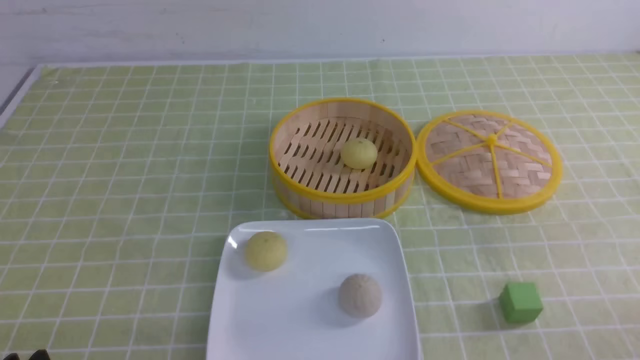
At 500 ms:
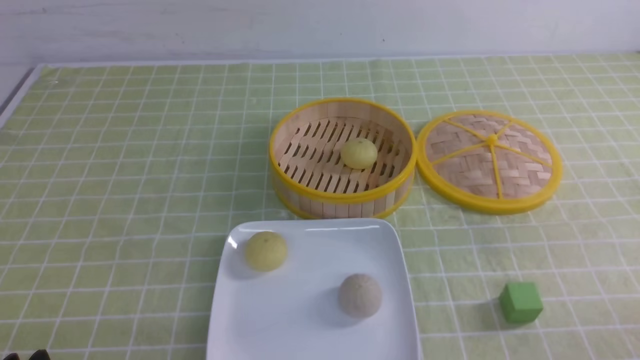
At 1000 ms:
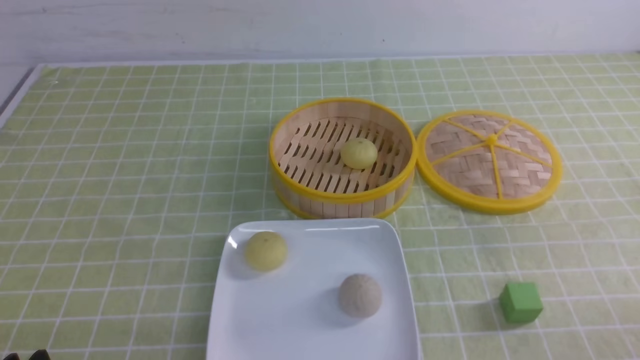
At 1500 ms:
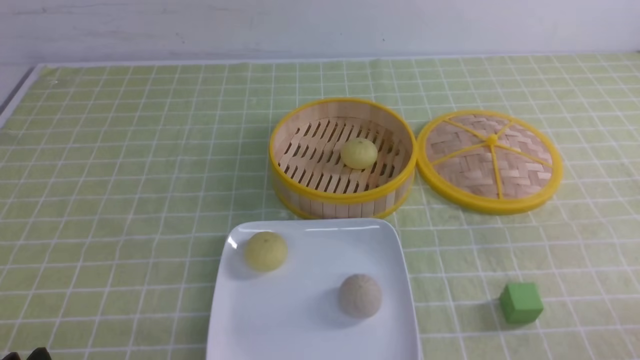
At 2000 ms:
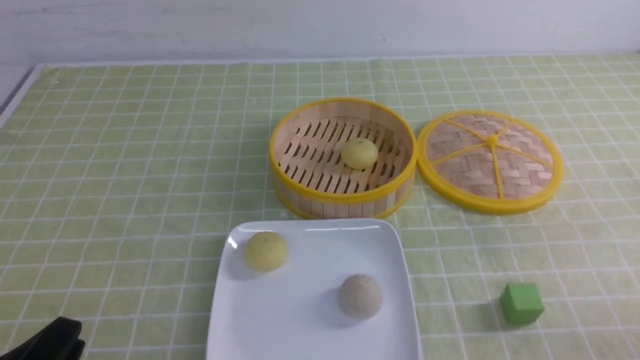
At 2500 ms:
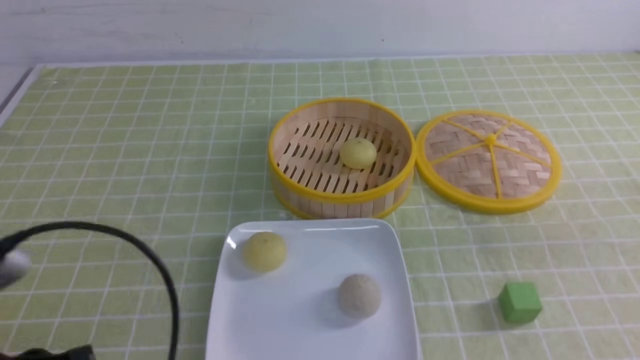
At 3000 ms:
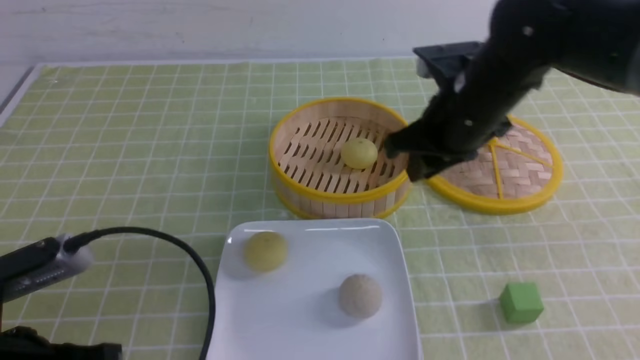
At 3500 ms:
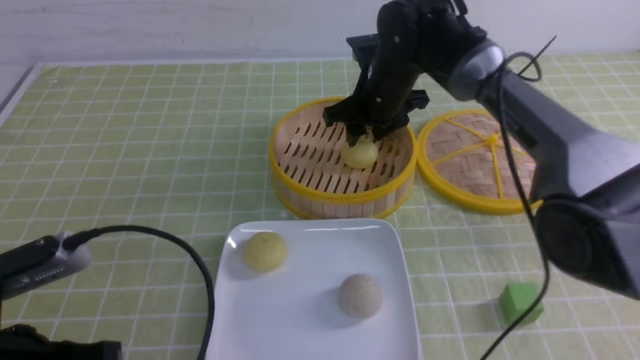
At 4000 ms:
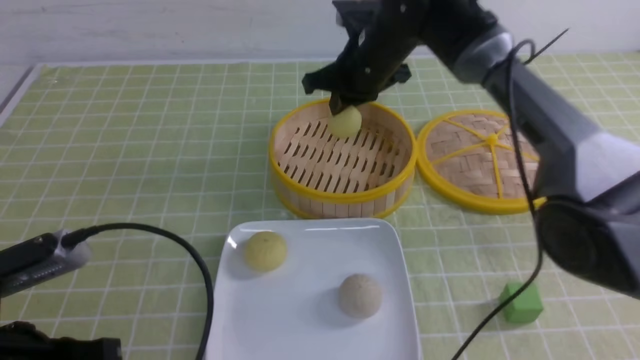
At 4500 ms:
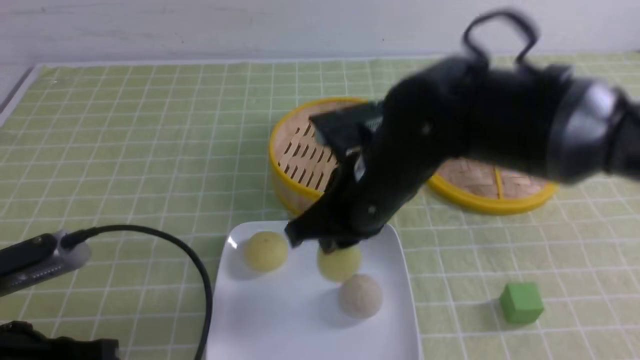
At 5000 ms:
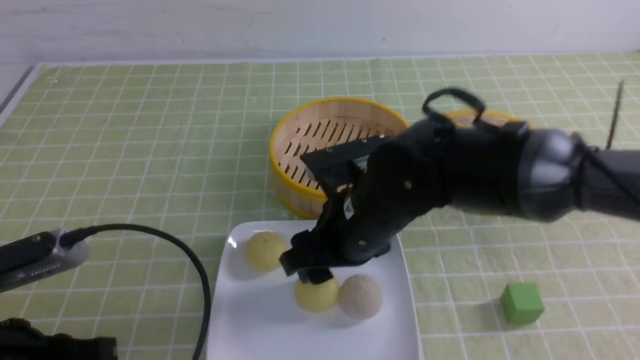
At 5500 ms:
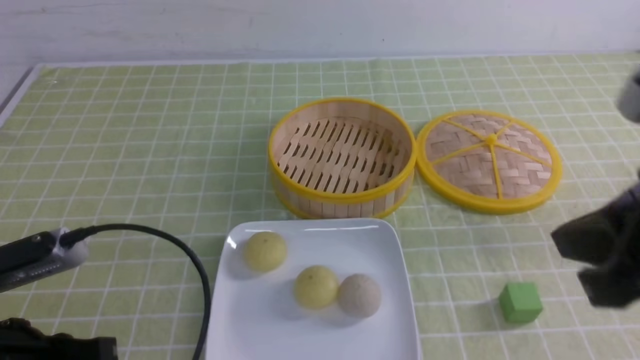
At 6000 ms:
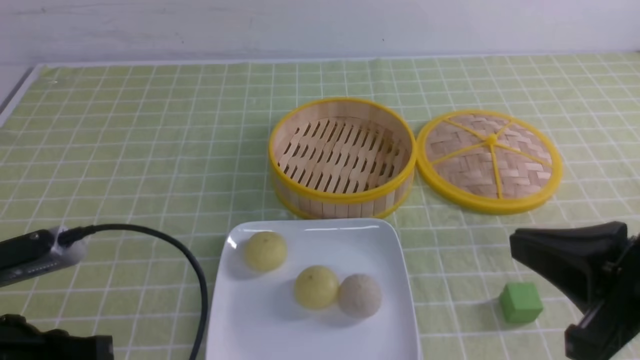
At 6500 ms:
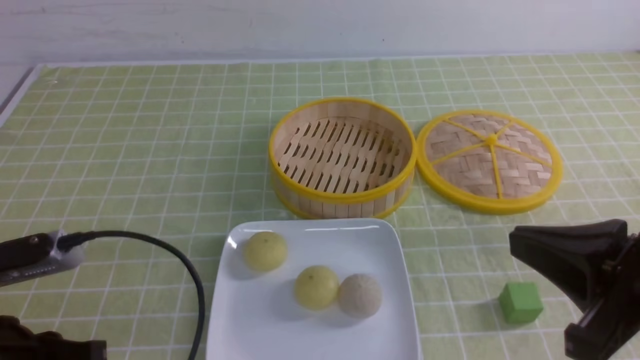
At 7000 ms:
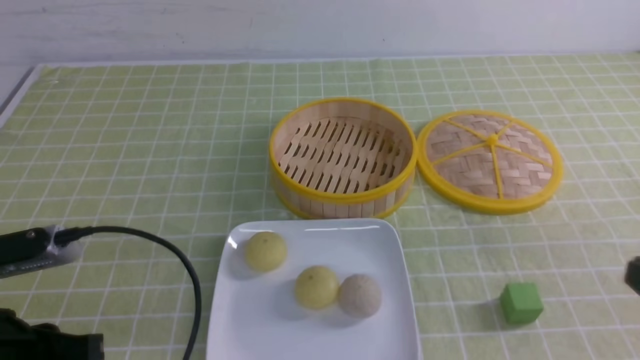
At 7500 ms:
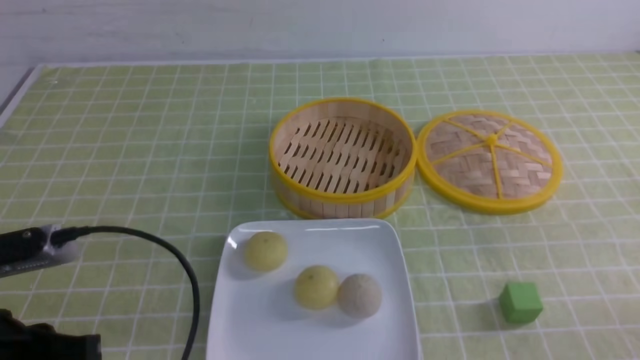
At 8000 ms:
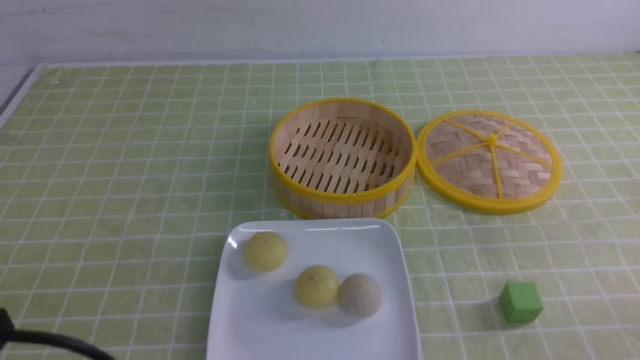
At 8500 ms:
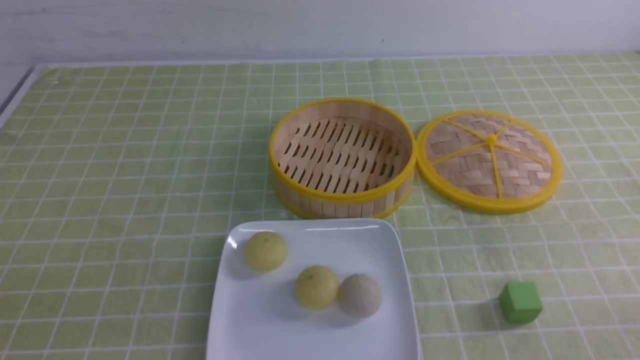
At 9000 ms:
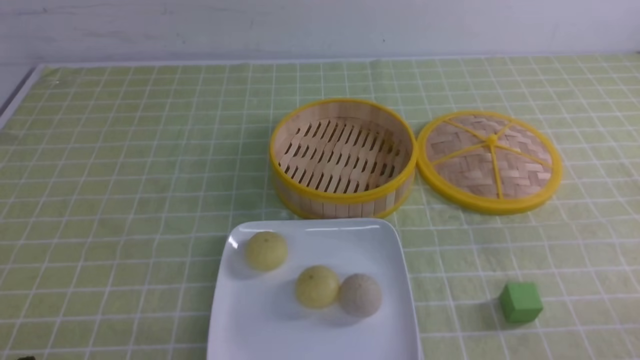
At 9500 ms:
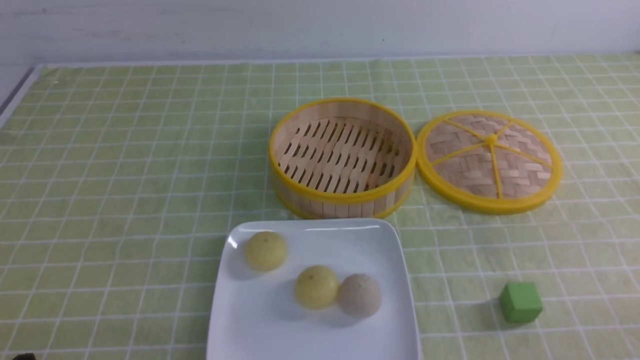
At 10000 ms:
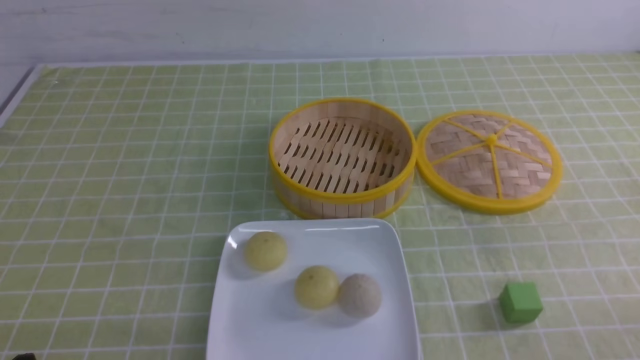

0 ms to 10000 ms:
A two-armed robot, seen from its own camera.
Step, 0 ms to 3500 ms: use the right arm to grab the steamed stuffed bun that is closest to it.
Step, 4000 ms to 4500 ms: use the right arm to put the steamed stuffed bun into the plate.
2000 ms to 4000 ms: The left gripper is displaced forward by roughly 5 cm, and closes its fingers; the right gripper shifts roughly 50 cm forward and to the left, and closes.
4000 ms to 6000 ms: The right gripper goes about 35 cm backward and to the right, and opens and closes again.
6000 ms to 8000 ms: The left gripper travels backward by roughly 10 cm, and closes, while the right gripper shifts some 15 cm downward, to the right and backward.
8000 ms to 10000 ms: The left gripper is displaced downward by about 10 cm.

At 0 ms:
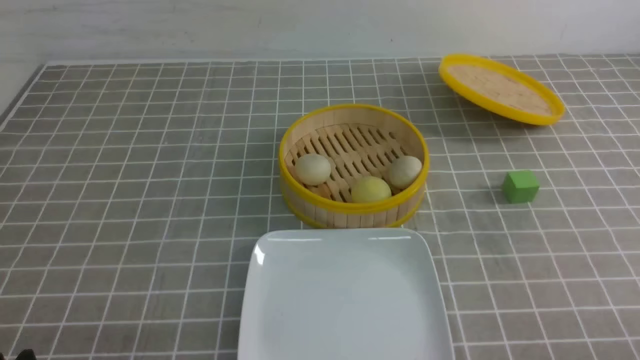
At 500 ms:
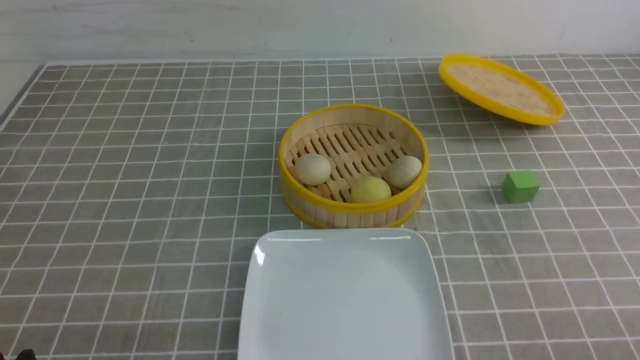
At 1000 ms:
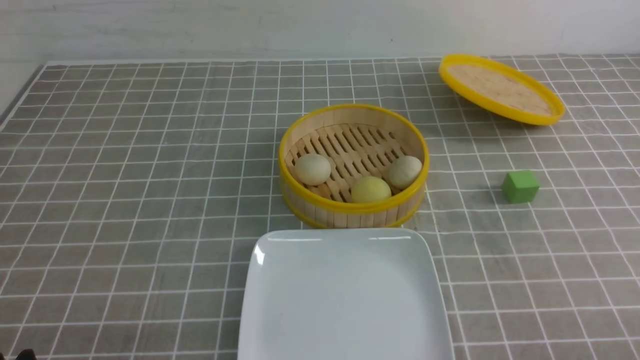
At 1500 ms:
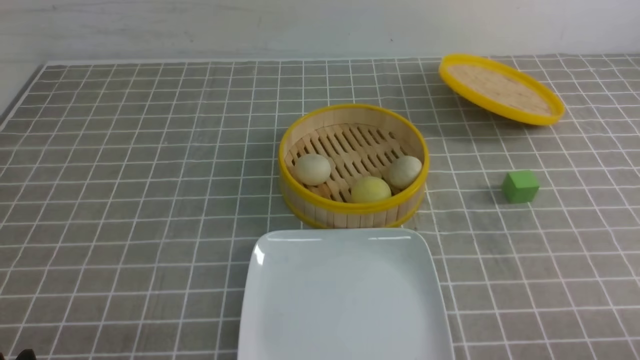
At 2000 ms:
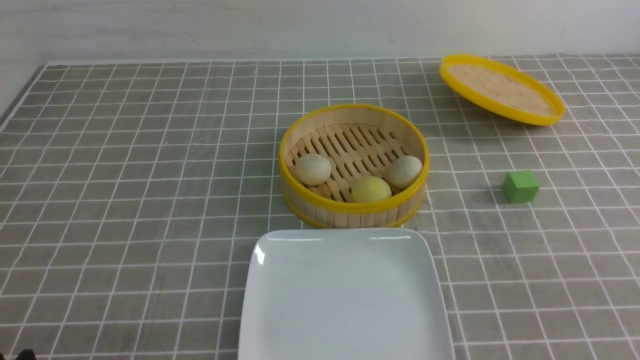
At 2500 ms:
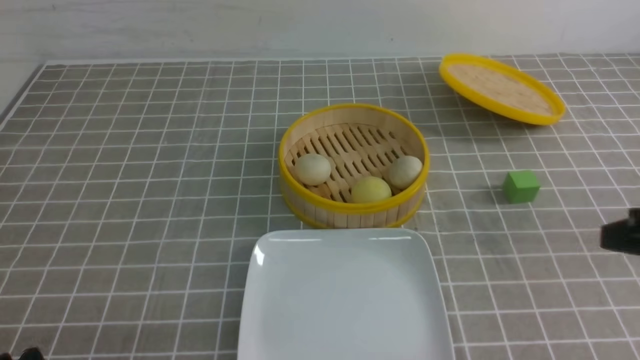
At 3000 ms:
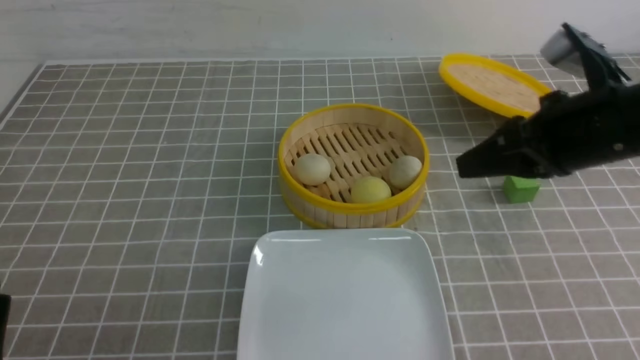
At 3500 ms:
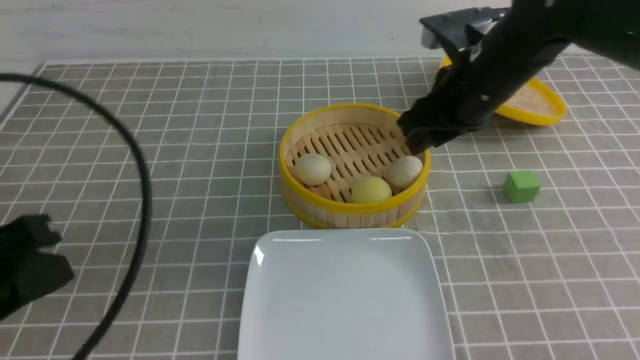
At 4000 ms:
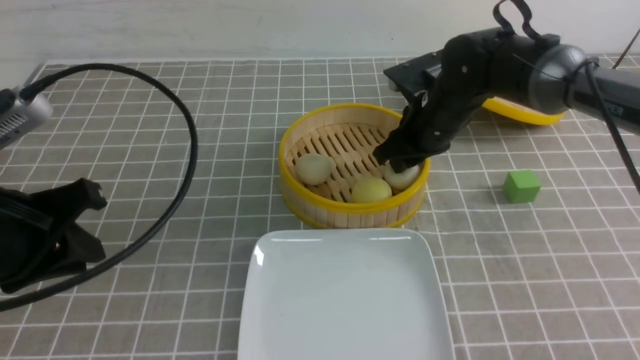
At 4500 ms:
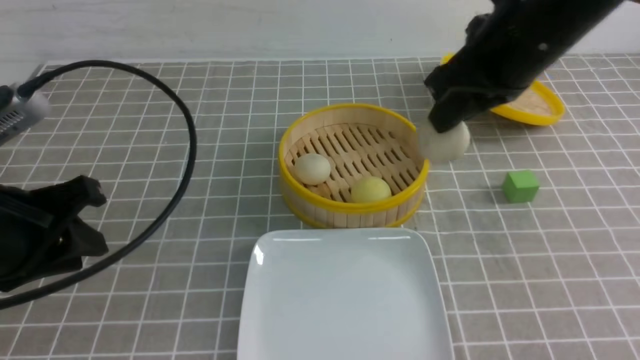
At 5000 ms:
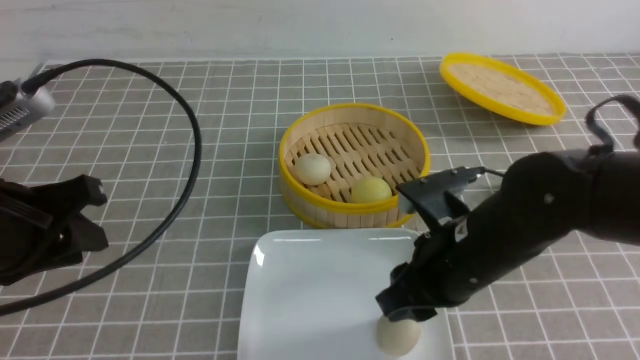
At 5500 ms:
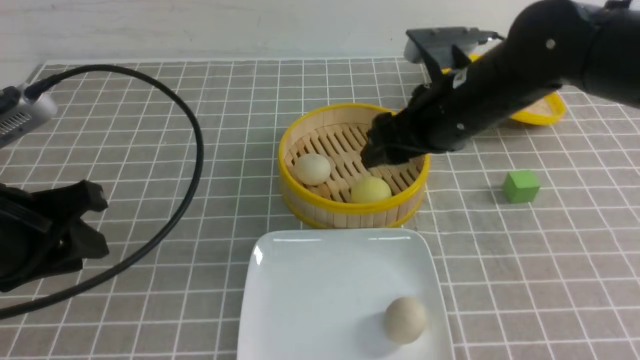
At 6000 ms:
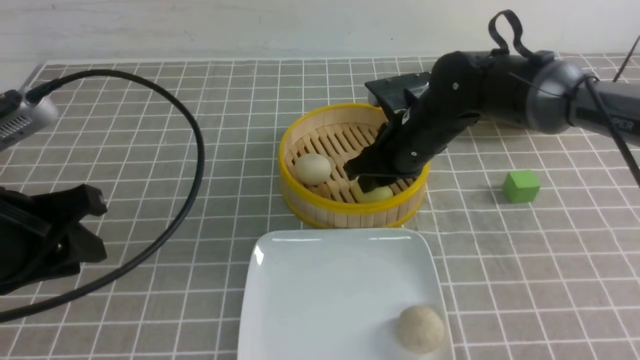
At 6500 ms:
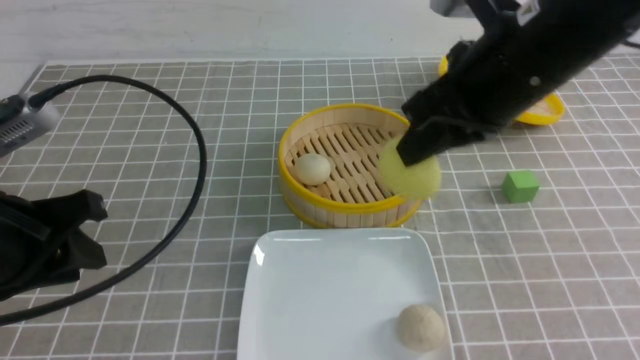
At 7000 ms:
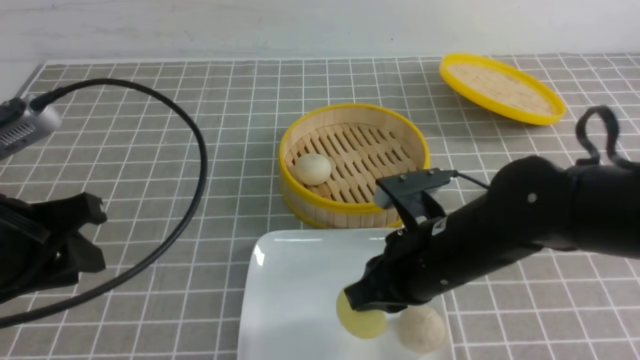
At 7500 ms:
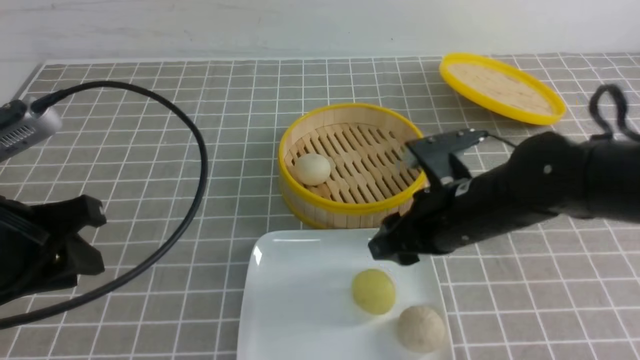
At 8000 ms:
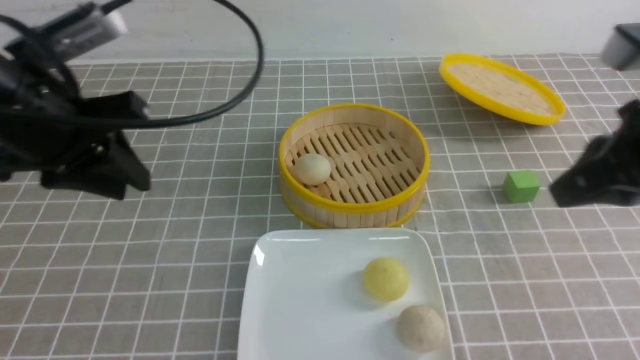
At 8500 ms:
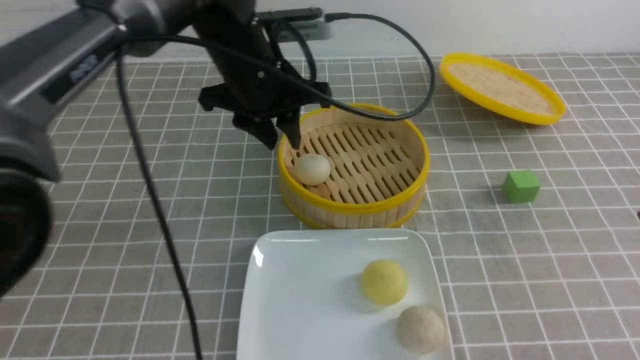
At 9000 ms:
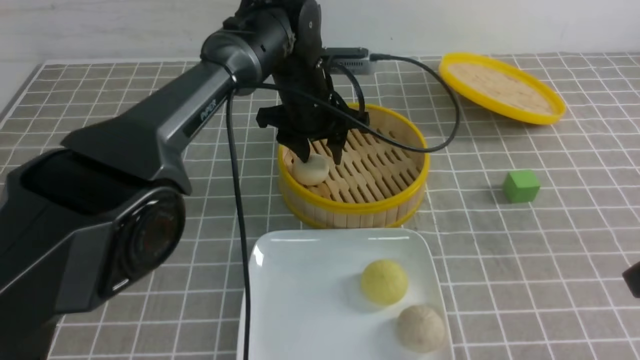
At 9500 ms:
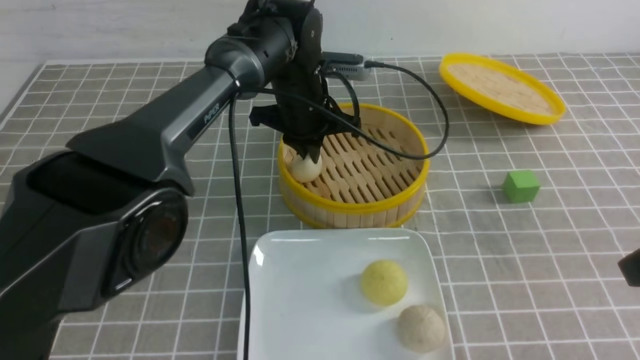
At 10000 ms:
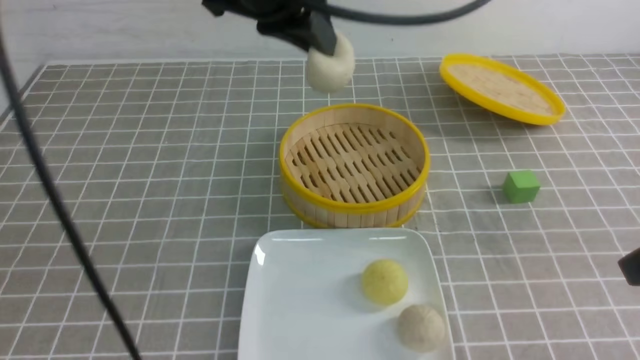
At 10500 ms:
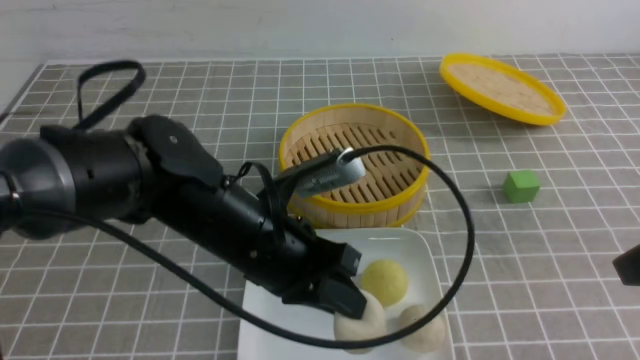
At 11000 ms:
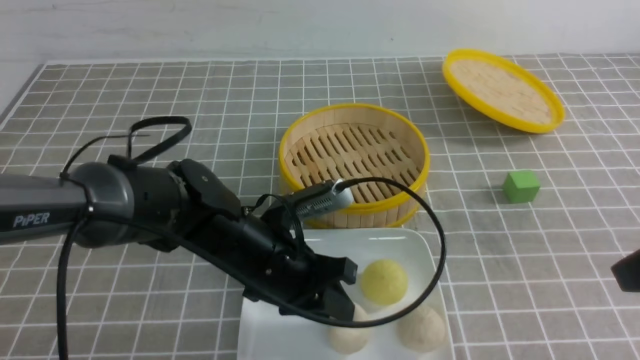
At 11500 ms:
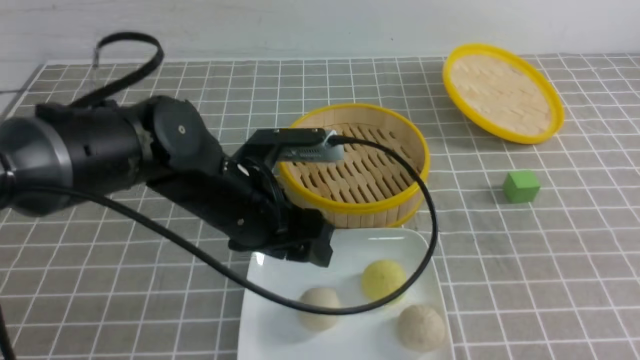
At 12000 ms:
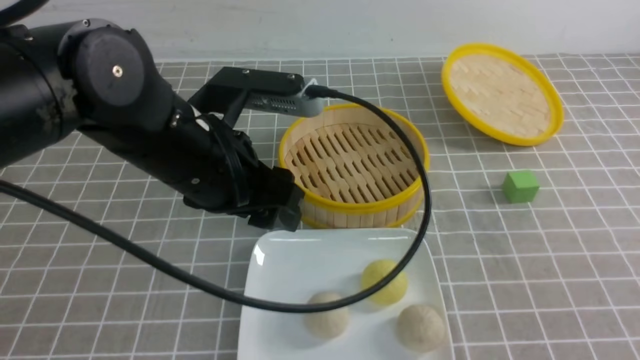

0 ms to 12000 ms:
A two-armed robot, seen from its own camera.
Step, 0 ms to 4000 ms: use the right arm to grab the steamed stuffed bun that is closest to it.
Step, 4500 ms to 5000 ms: use the right arm to put the steamed stuffed bun into the plate.
Step, 5500 ms to 6000 ms: use the right arm to grab the steamed stuffed bun that is closest to it.
Step, 6500 ms to 7000 ms: use the right arm to put the steamed stuffed bun into the plate.
Step, 7500 ms to 9500 ms: use the left arm to grab the steamed stuffed bun that is closest to it.
Step, 10000 ms to 11000 ms: use the left arm to put the steamed stuffed bun into the plate.
2000 ms to 4000 ms: The left gripper is displaced forward and upward by some 20 cm. Meanwhile the right gripper travels forward and to the left by roughly 40 cm.
4000 ms to 6000 ms: The right gripper goes backward and returns, about 20 cm each way, and opens and closes again.
6000 ms to 8000 ms: The right gripper moves forward and backward over some 15 cm, changing direction 2 times, while the left gripper moves forward, some 10 cm.
8000 ms to 10000 ms: The left gripper travels to the right by roughly 15 cm, and closes up, while the right gripper goes approximately 5 cm backward.
10000 ms to 12000 ms: The right gripper moves backward, roughly 15 cm. Meanwhile the left gripper goes approximately 10 cm downward and backward, and opens its fingers.
